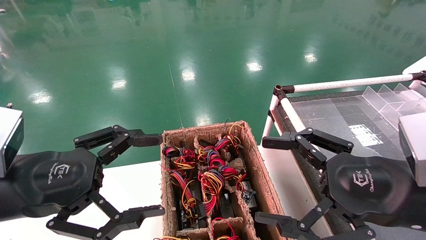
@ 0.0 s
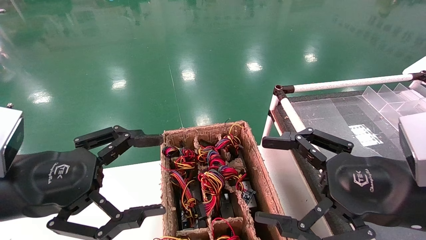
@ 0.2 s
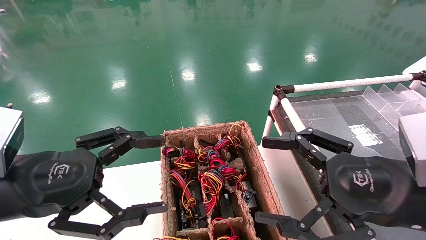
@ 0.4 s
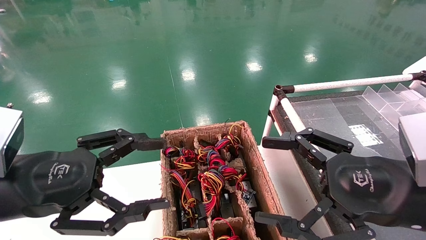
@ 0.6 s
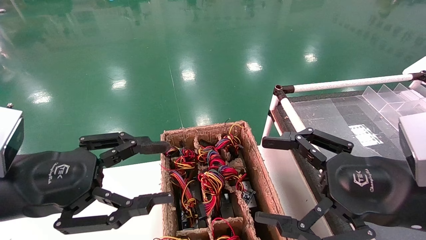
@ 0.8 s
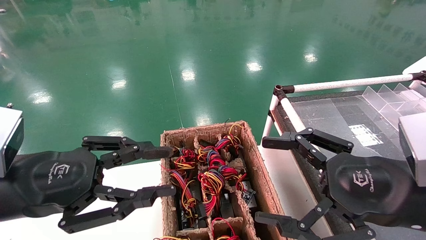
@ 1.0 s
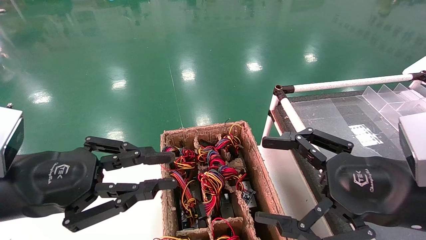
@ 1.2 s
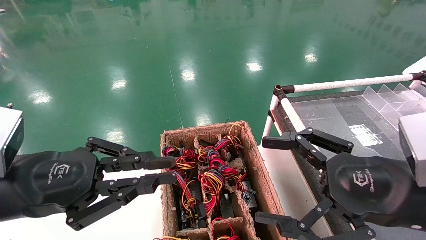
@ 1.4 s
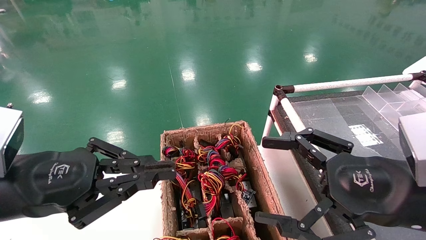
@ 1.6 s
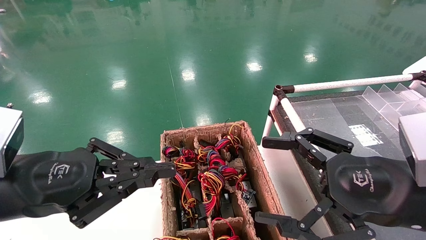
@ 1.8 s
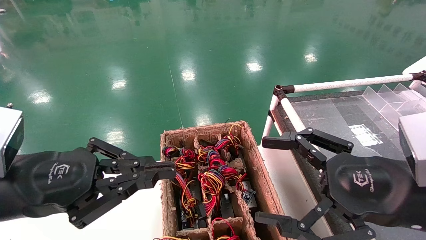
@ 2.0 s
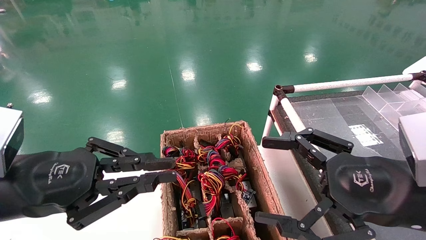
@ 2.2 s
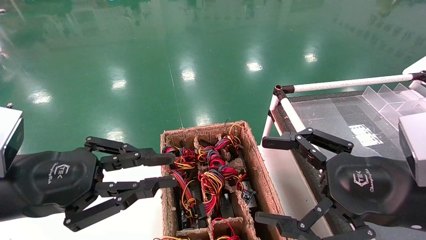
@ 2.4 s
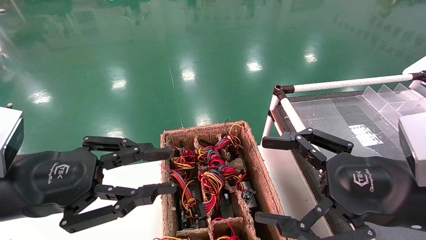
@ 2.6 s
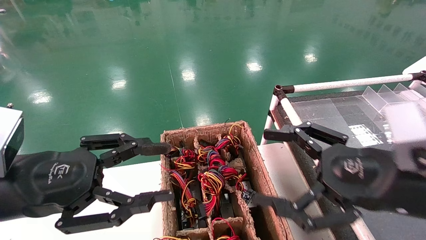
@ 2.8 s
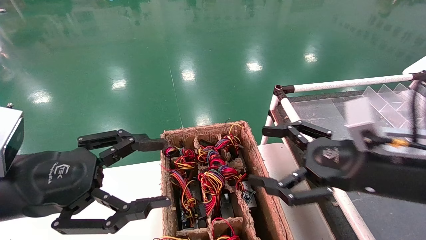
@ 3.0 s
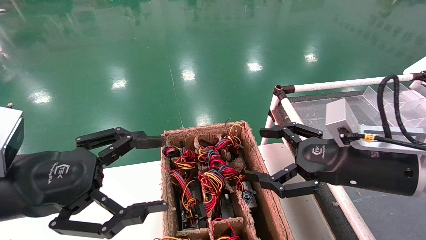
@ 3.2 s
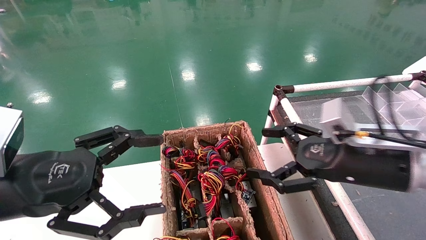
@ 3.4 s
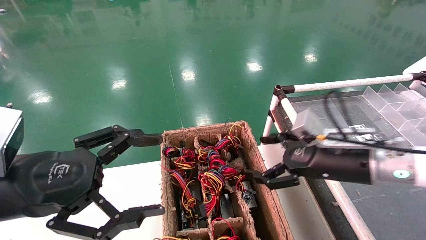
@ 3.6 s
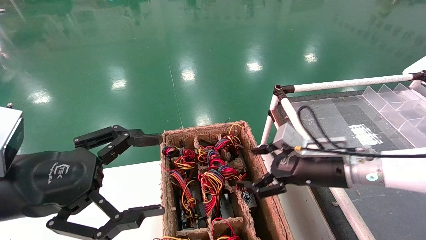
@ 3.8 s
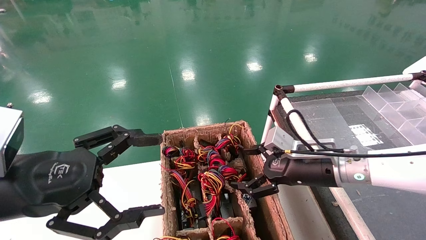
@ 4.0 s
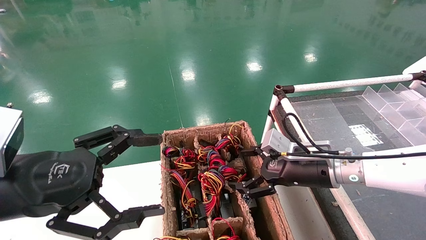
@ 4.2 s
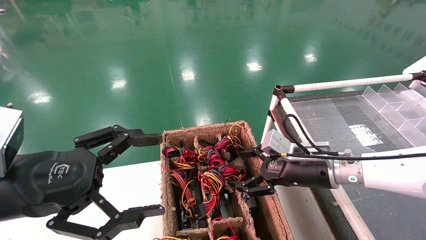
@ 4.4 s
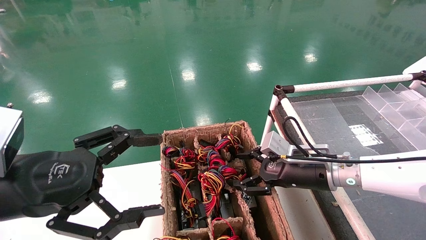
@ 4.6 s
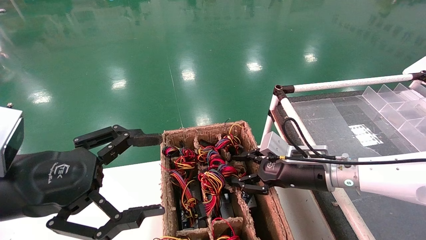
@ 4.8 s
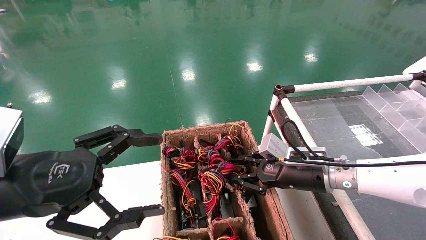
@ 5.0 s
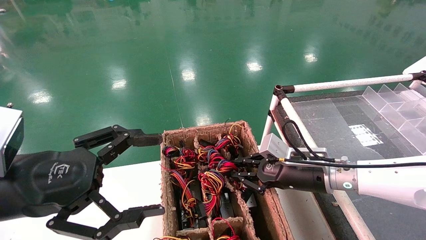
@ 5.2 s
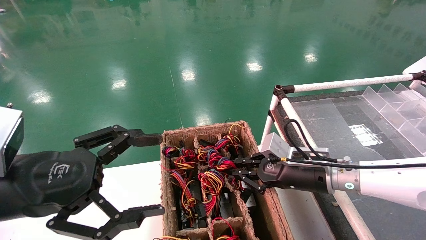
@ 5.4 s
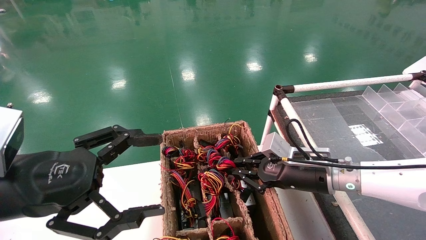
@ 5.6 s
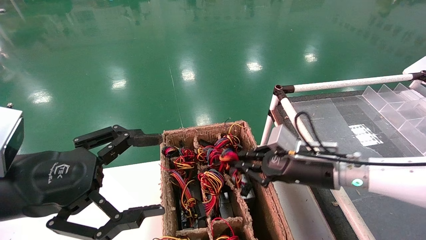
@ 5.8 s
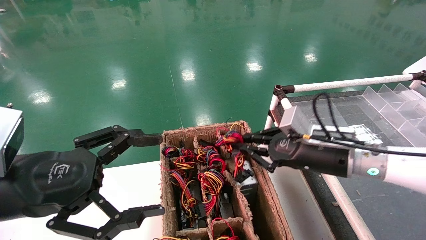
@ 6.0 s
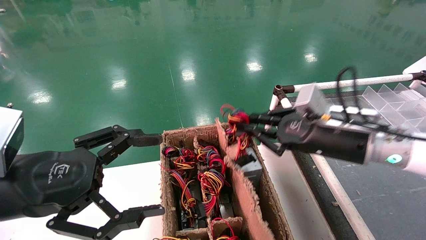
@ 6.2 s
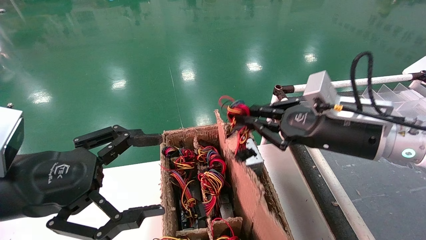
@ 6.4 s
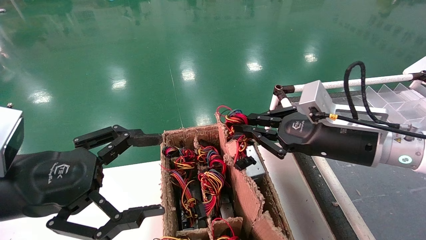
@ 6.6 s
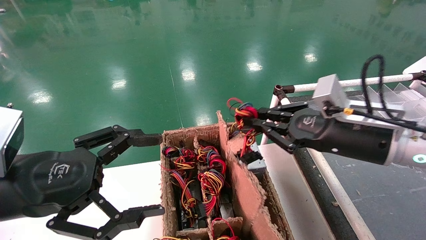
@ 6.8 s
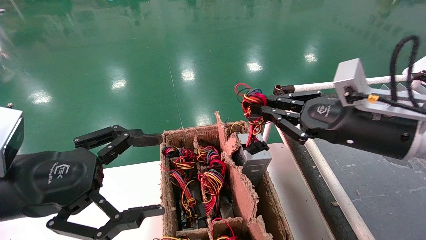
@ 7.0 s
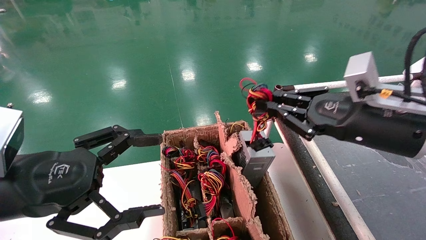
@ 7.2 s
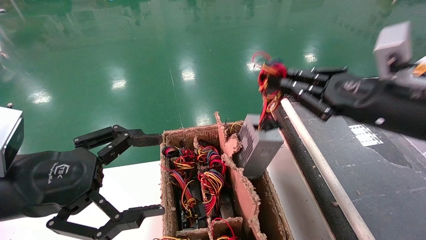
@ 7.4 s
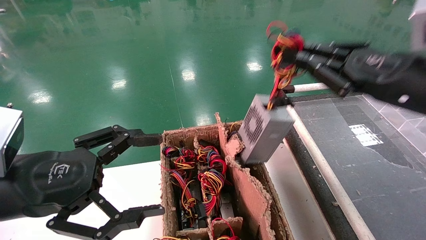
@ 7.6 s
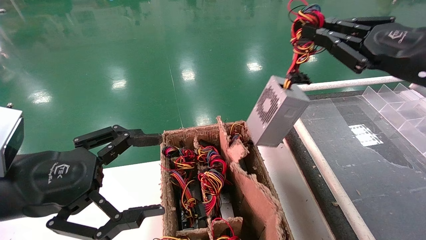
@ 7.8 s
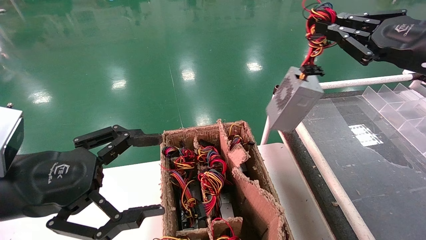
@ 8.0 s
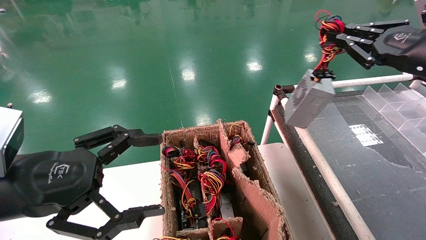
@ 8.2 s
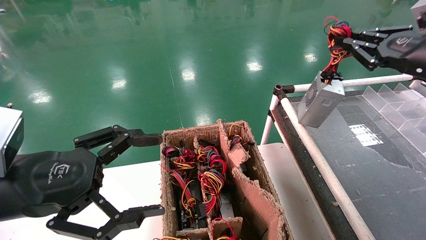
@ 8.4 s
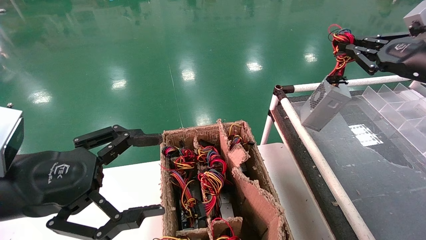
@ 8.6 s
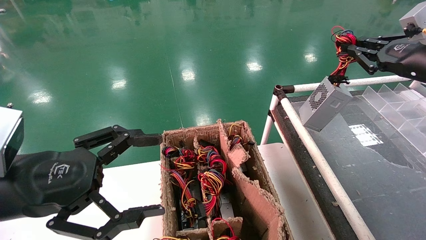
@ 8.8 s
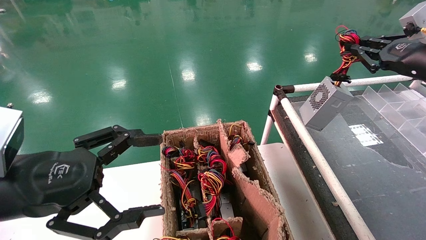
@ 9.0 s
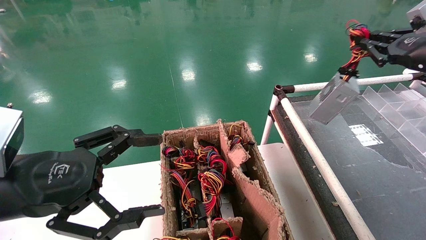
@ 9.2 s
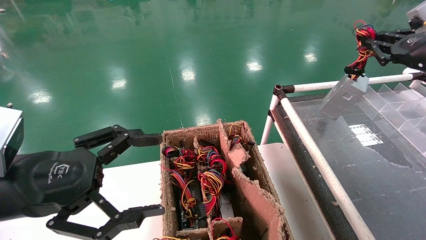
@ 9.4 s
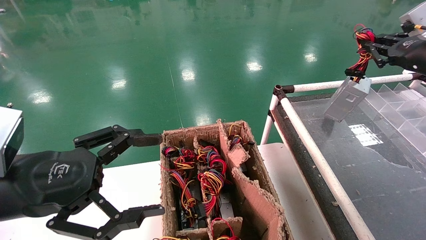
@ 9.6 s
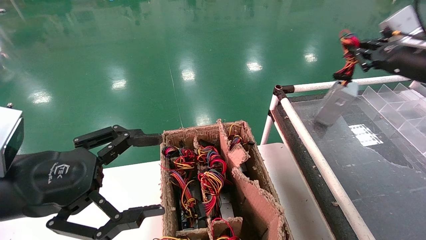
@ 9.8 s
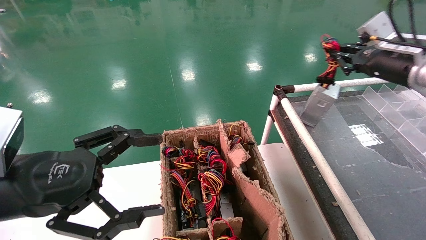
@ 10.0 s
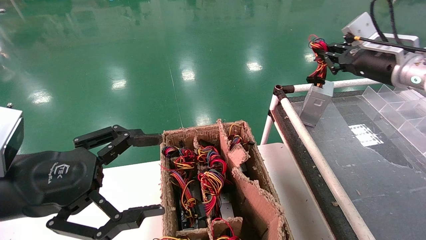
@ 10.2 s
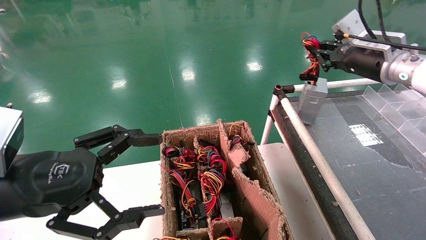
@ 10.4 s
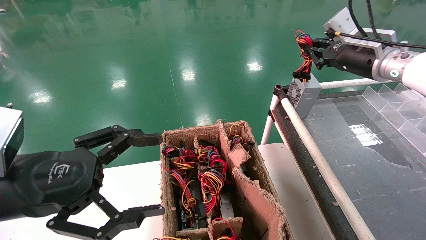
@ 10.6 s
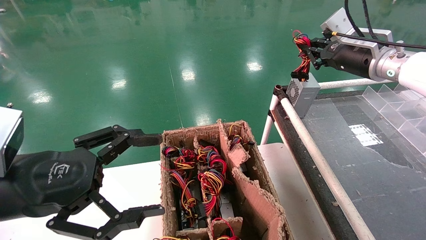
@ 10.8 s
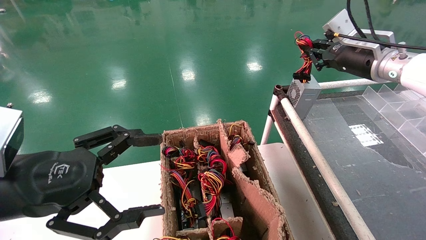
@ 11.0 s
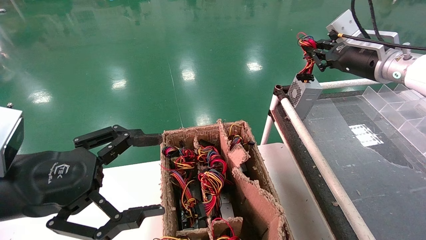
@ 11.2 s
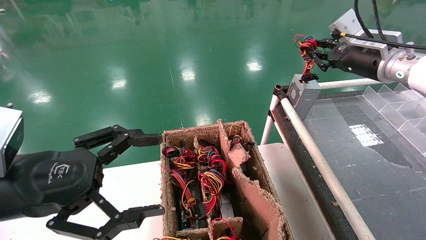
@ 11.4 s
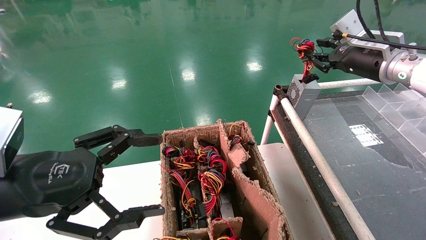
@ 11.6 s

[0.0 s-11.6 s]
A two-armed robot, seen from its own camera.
Step, 1.8 to 5.4 s: Grab and lift the power supply from the large box.
Step, 5.6 to 11.4 s: Place the power supply on the operating table.
0.0 to 1.4 s: The left gripper closes up.
1.4 to 2.8 s: The grippers move only a little.
2.8 to 4.4 s: The right gripper heads forward and downward, covering about 15 cm, while the left gripper opens up.
4.4 to 5.8 s: The right gripper closes up.
5.8 to 7.2 s: The right gripper moves upward, backward and to the right, approximately 15 cm.
7.2 to 8.8 s: The right gripper goes about 15 cm to the right, forward and upward.
8.8 to 10.2 s: The right gripper travels forward and to the left by some 10 cm.
10.2 to 11.6 s: There are only small adjustments of the grippers.

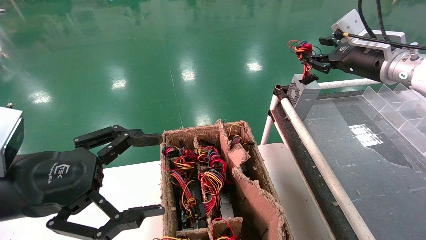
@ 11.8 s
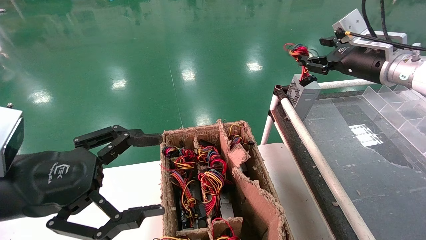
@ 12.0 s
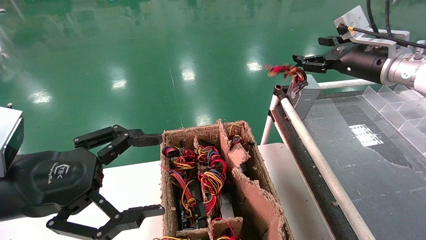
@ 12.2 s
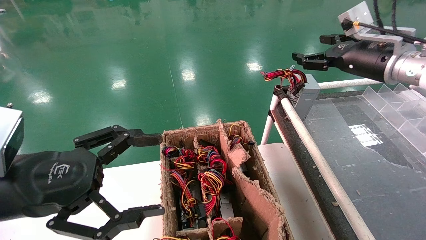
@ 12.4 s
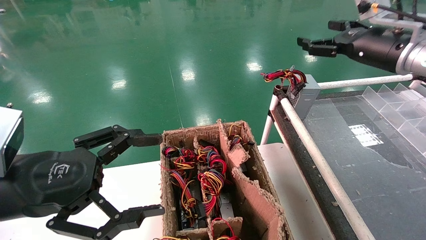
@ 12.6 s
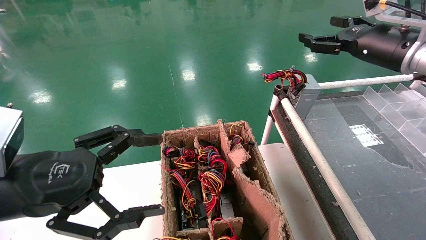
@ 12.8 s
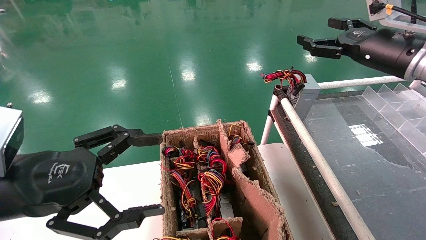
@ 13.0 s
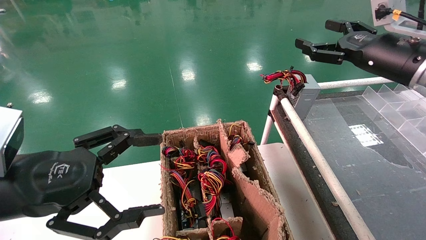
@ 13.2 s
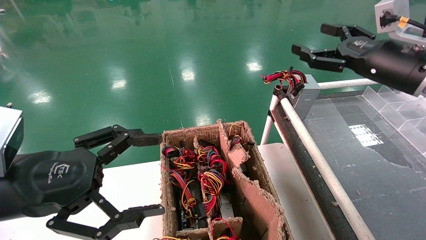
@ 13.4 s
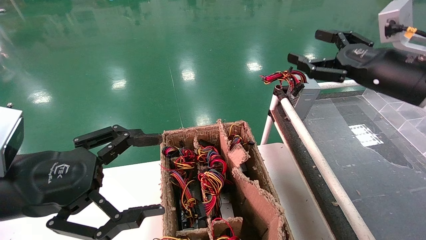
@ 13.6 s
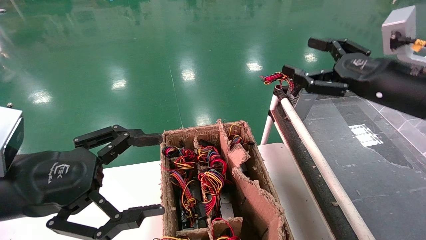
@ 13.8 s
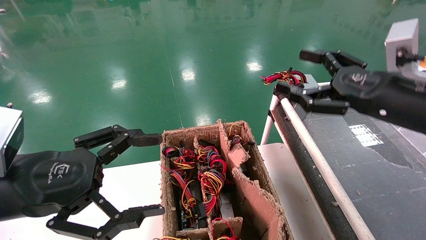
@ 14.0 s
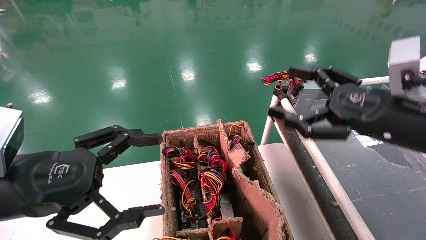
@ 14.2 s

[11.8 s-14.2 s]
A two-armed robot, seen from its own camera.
11.8 to 13.0 s: The right gripper opens up.
13.0 to 14.2 s: The right gripper moves backward and downward, approximately 15 cm.
